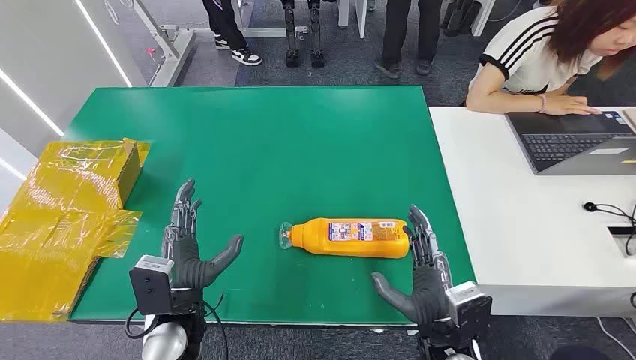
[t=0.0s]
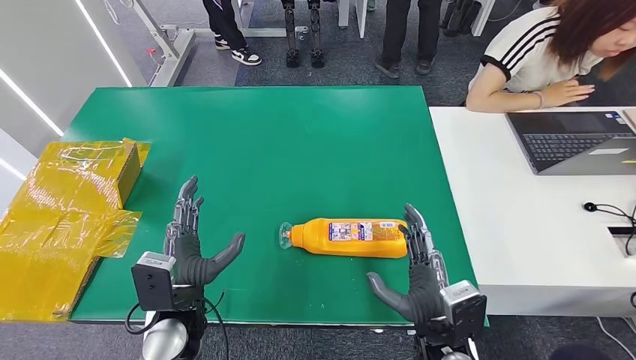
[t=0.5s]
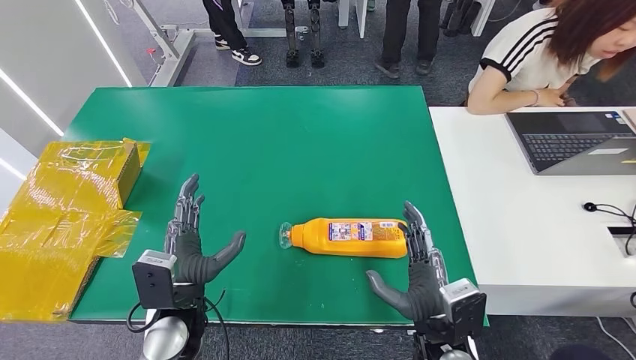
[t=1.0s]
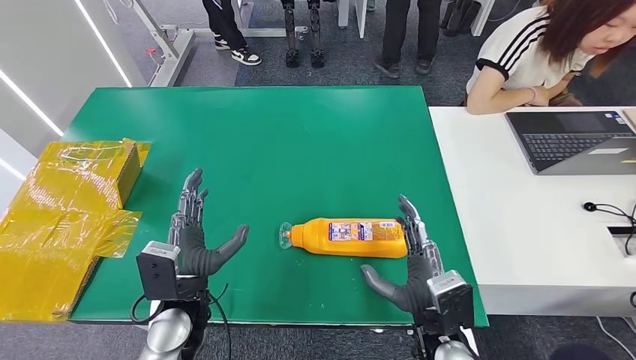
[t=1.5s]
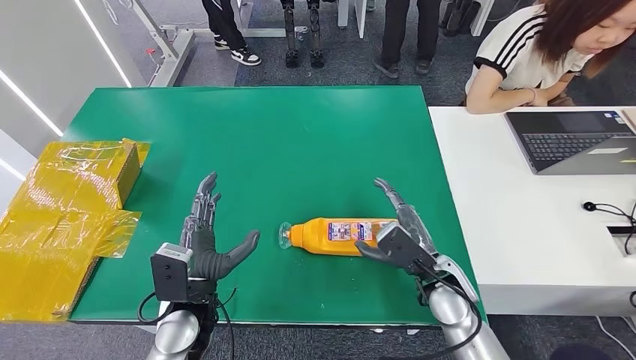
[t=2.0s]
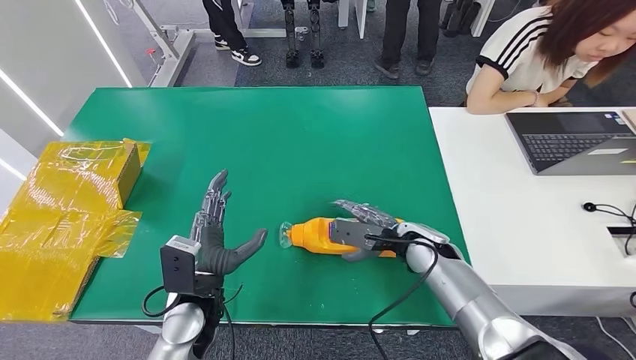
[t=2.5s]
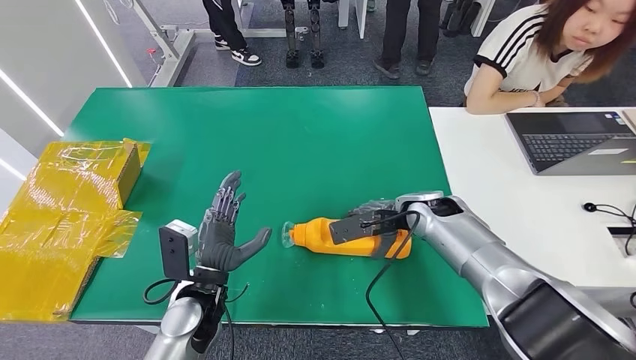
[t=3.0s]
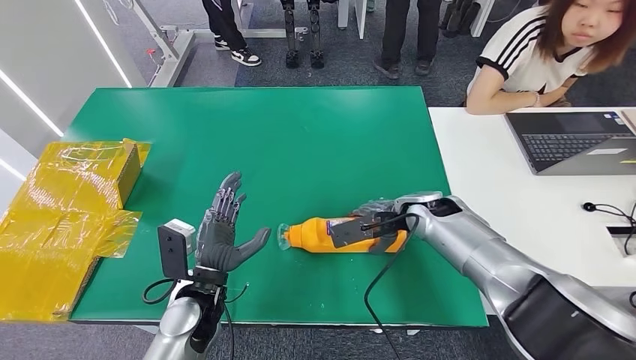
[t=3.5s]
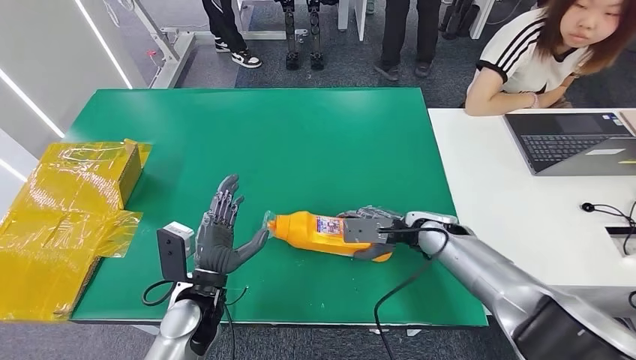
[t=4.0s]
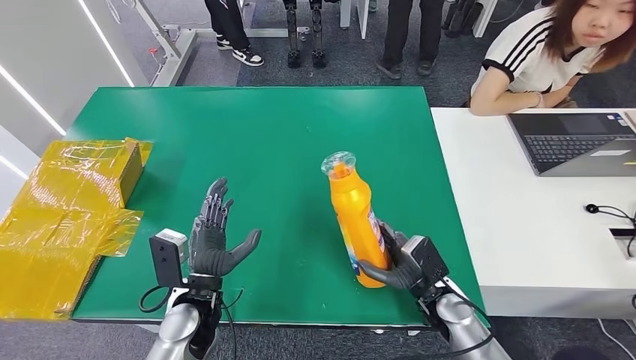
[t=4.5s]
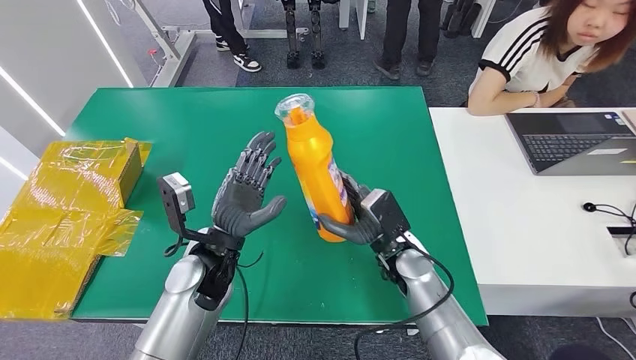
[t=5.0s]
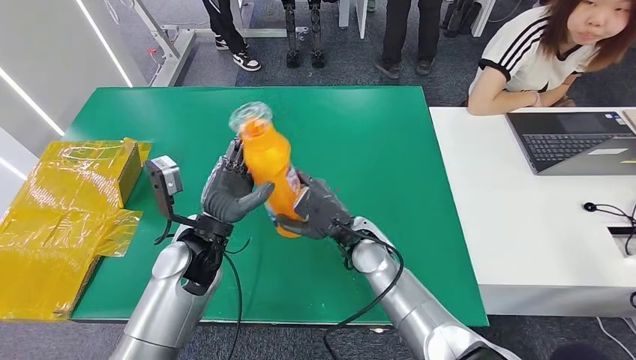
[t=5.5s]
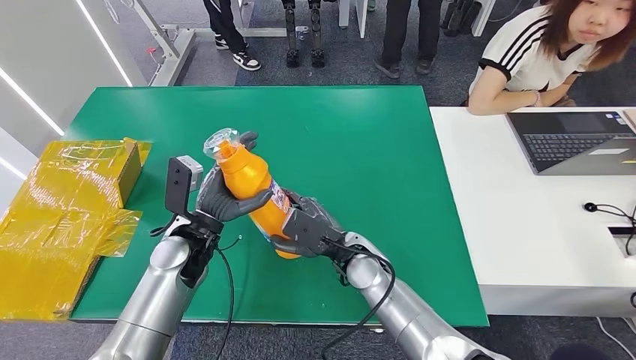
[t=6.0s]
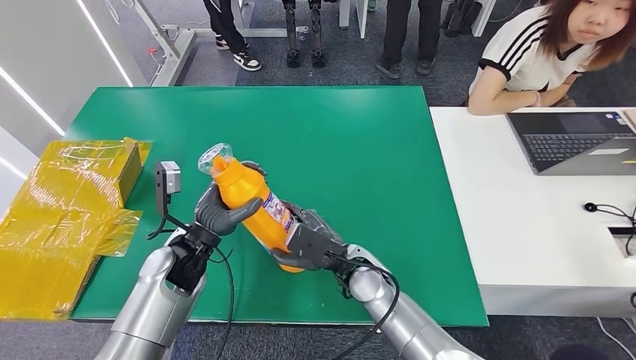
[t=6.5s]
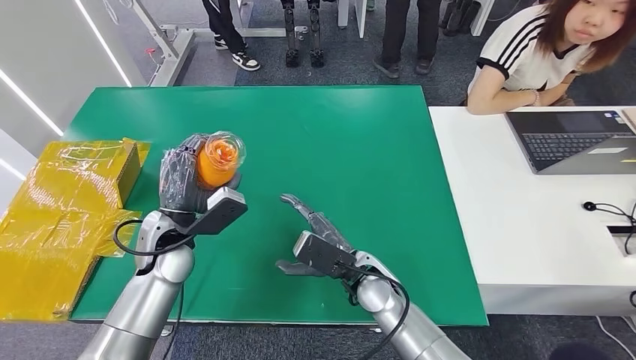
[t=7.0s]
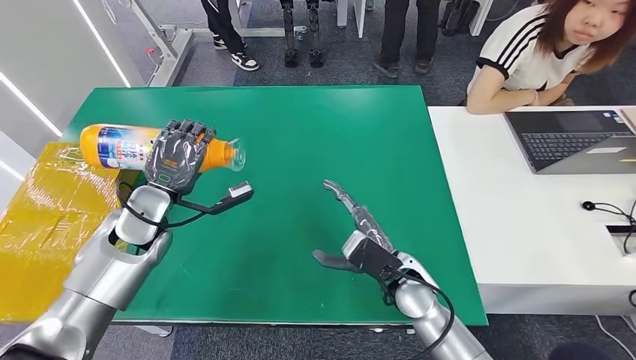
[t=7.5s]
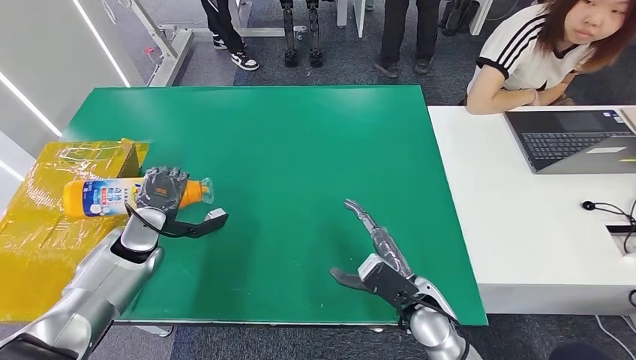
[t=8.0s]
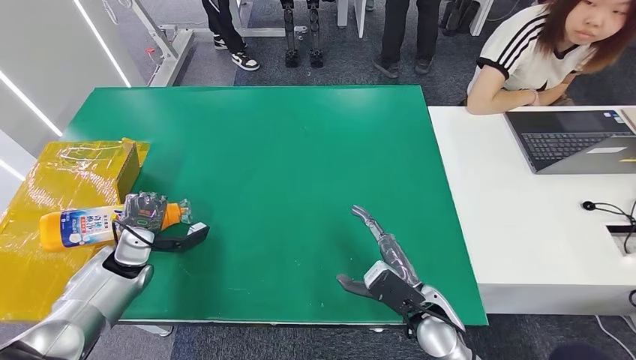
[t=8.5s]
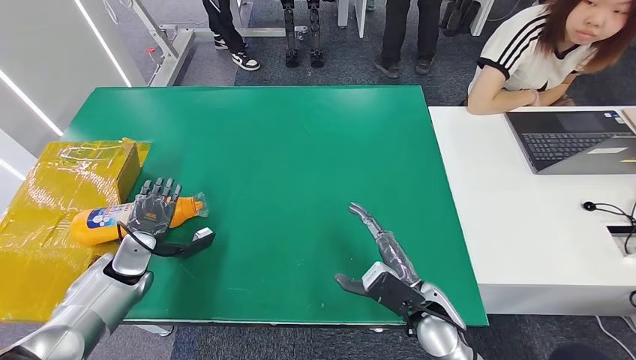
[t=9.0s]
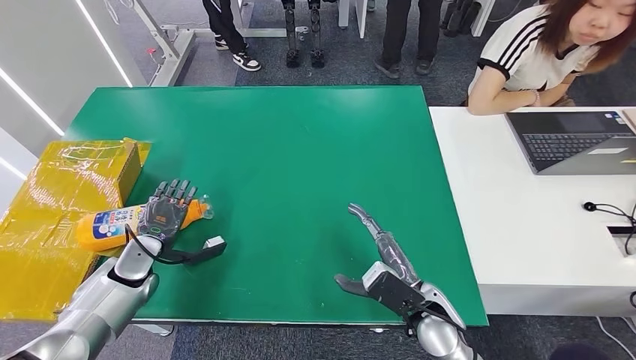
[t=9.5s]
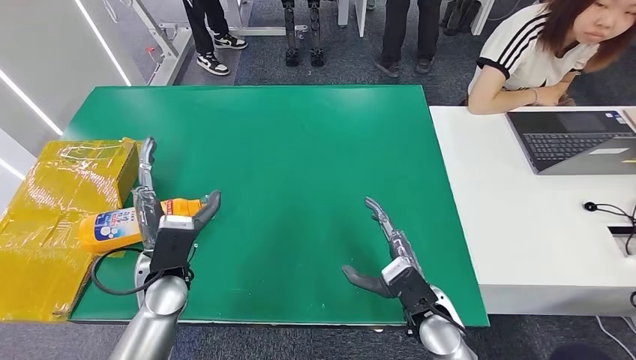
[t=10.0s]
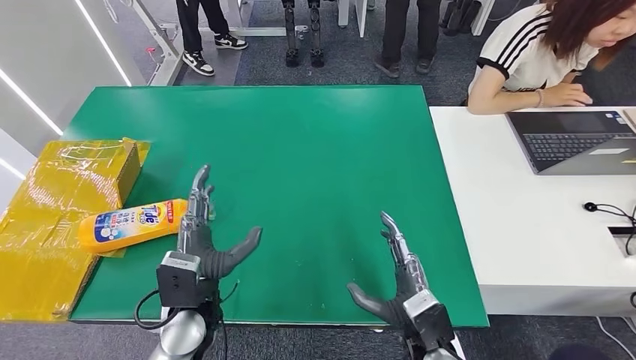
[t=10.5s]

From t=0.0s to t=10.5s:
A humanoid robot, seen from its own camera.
Step, from t=0.0s to t=4.5s: Pick up the bottle from the table.
Step, from t=5.0s to t=10.0s: Turn the bottle to the front side.
From t=2.0s to t=4.0s: The right hand shifts about 10 cm forward.
From t=8.5s to t=10.5s: The left hand goes some 20 cm to the right and backward. Meanwhile the right hand moves backward, some 5 cm.
